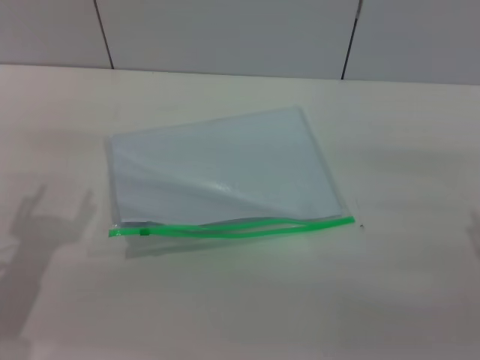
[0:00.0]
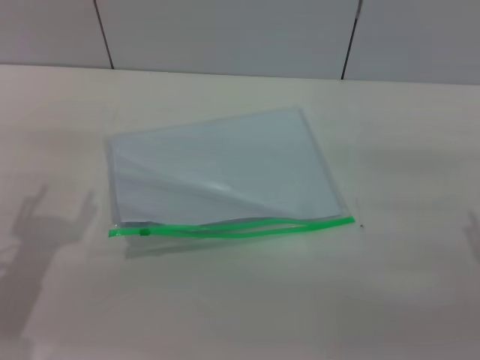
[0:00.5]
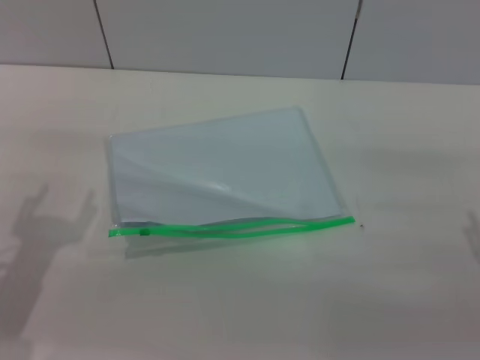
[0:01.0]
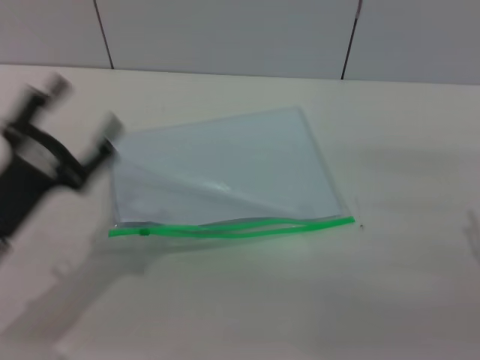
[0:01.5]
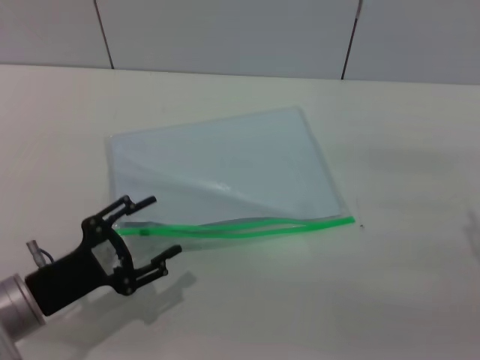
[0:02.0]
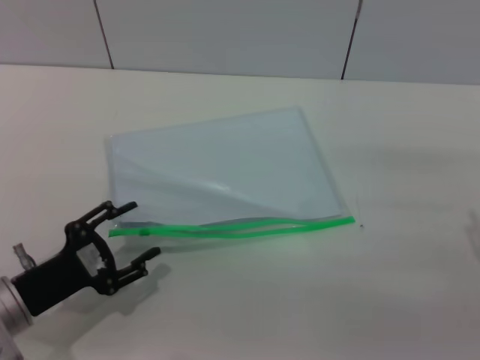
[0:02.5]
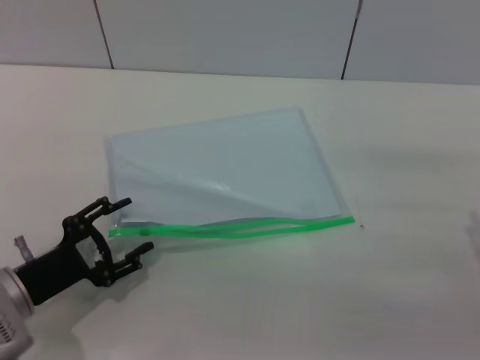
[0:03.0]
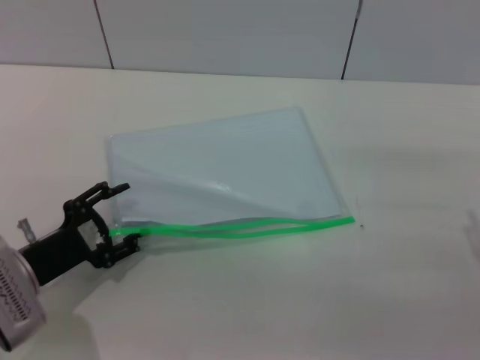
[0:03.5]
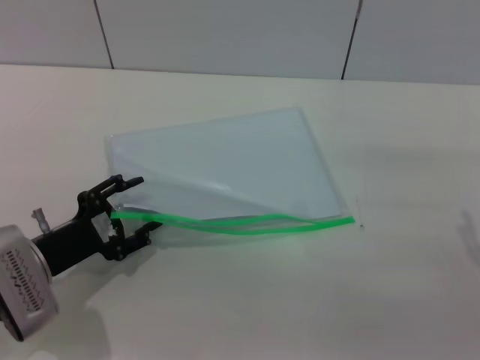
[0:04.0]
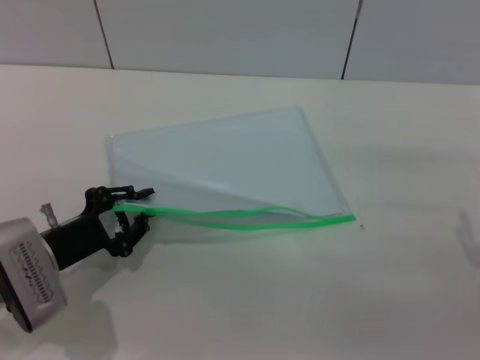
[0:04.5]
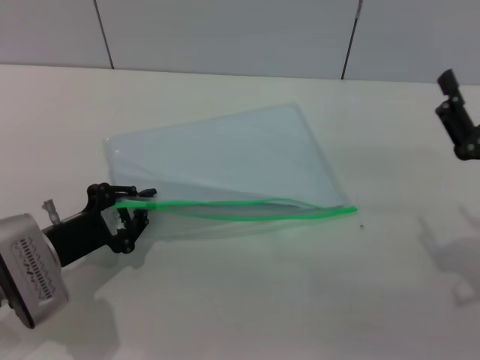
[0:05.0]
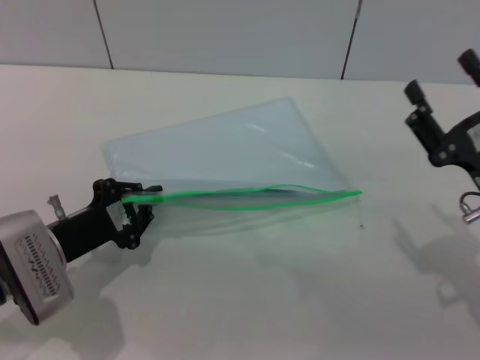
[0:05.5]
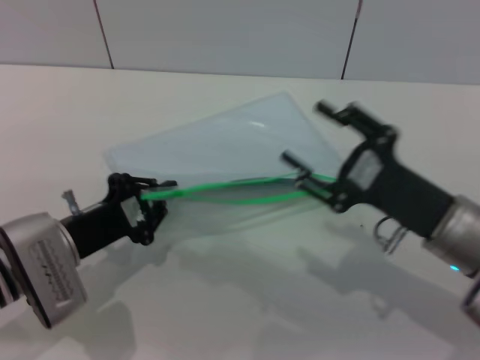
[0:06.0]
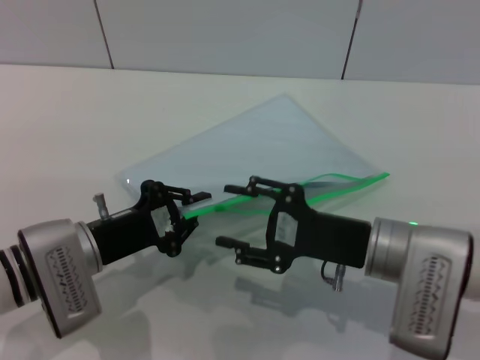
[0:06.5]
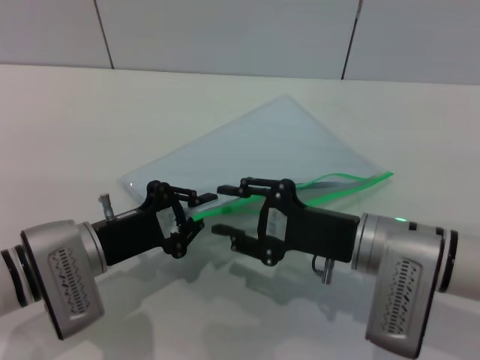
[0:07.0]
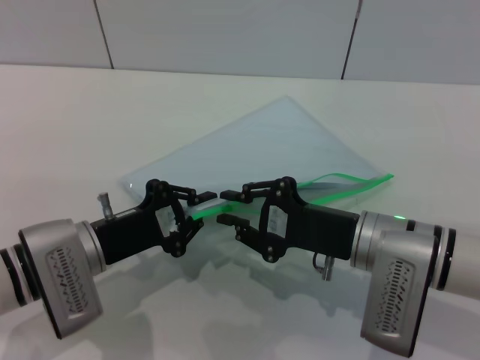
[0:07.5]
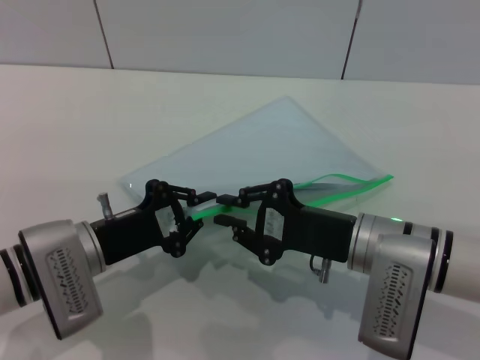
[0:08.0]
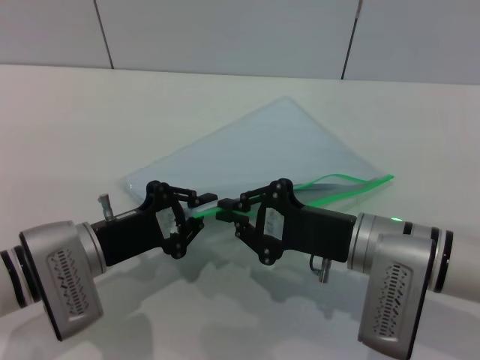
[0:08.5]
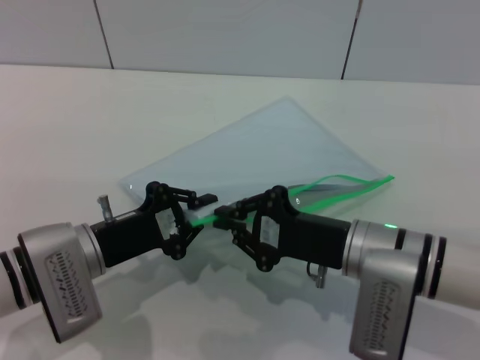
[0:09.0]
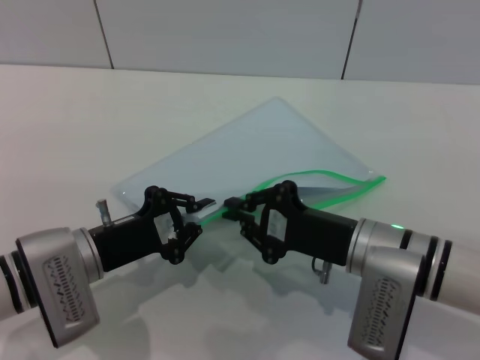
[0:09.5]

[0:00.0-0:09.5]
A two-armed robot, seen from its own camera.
Step, 0:00.0 to 0:05.0: Pick up the transparent plastic bag with the left gripper.
0:00.0 to 0:02.0: The left gripper goes about 5 cm downward.
0:02.0 to 0:04.0: The grippers stay close to where they were, moving slightly.
0:04.0 to 0:05.5: The left gripper closes.
0:05.5 to 0:07.5: The right gripper travels to the left by approximately 10 cm, and closes.
0:07.5 to 0:09.5: The grippers stay close to where they were, moving slightly.

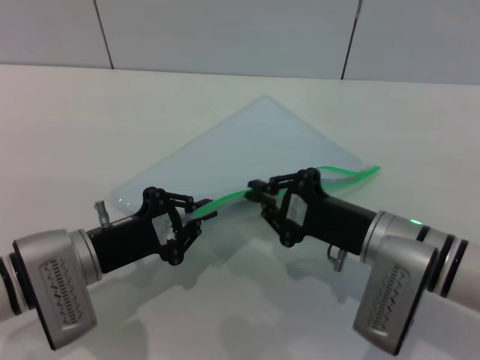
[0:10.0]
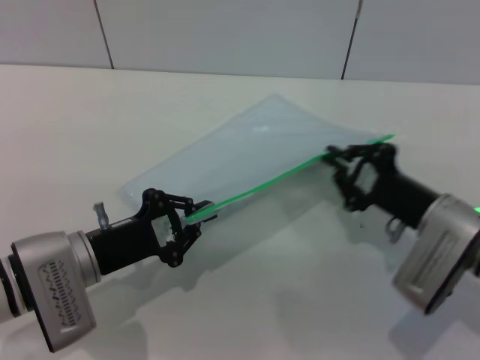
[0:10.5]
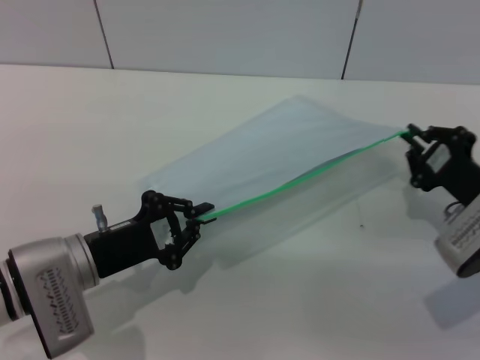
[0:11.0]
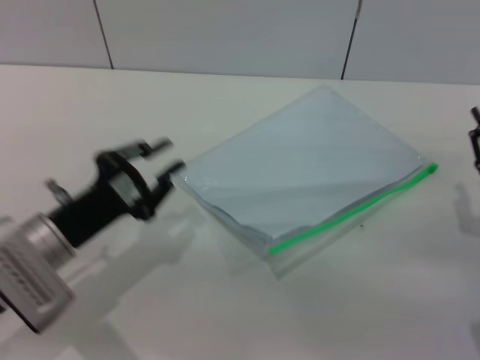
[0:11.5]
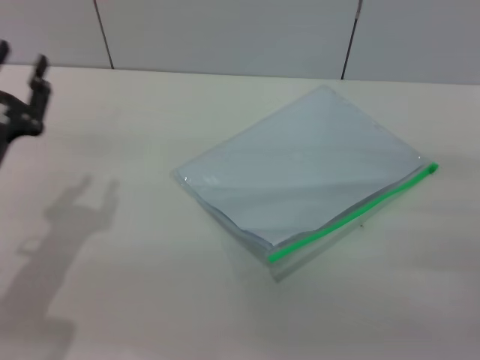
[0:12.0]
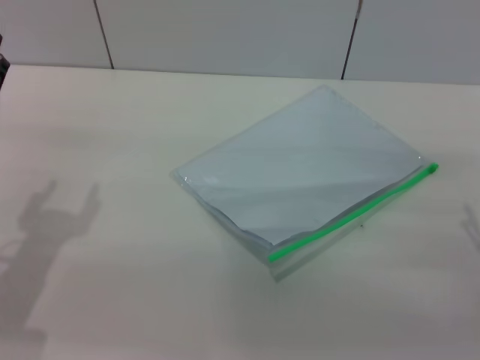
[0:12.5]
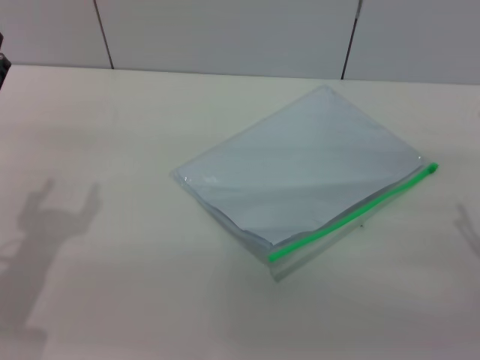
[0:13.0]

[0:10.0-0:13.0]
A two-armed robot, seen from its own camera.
Step, 0:11.5 to 0:12.0: Place the transparent plastic bag.
0:10.0 to 0:11.5: The right gripper heads to the right, covering approximately 15 cm.
0:11.5 to 0:13.0: The left gripper goes about 5 cm to the left, and opens. The right gripper opens.

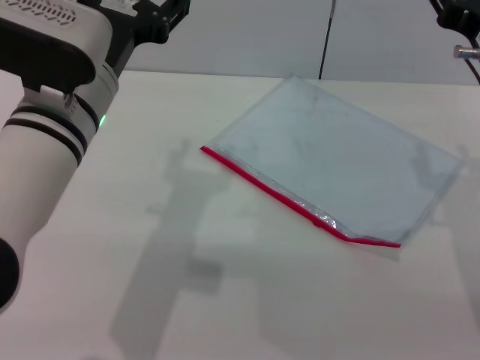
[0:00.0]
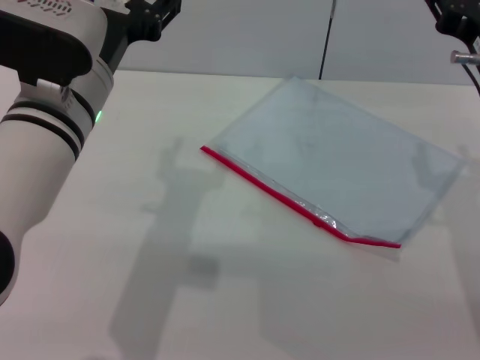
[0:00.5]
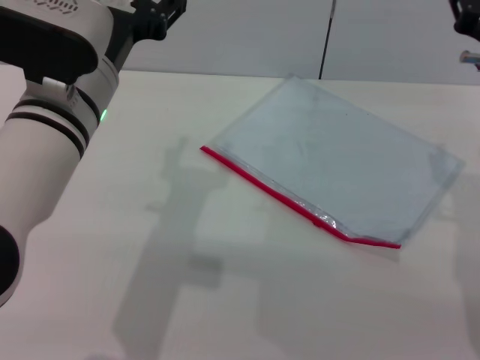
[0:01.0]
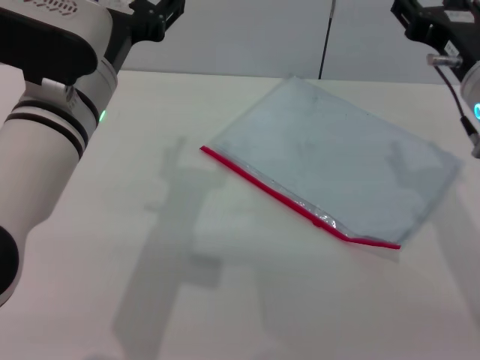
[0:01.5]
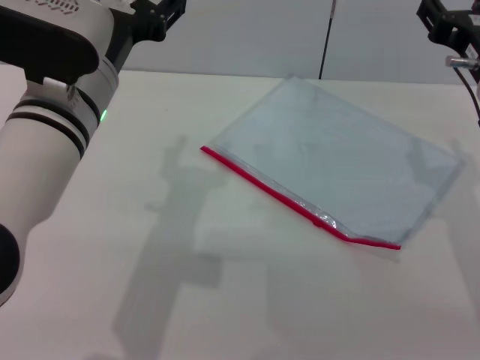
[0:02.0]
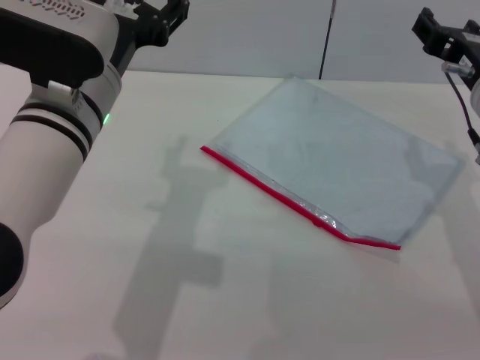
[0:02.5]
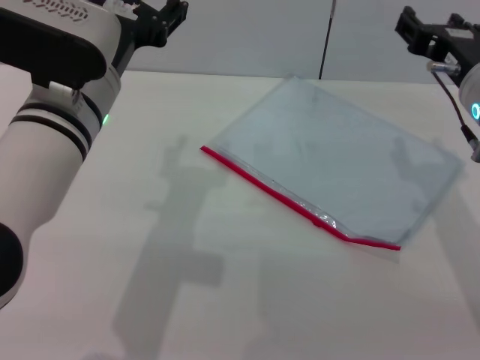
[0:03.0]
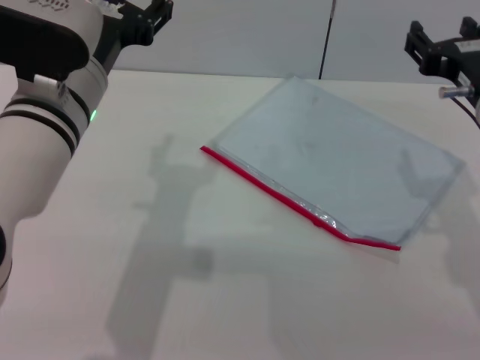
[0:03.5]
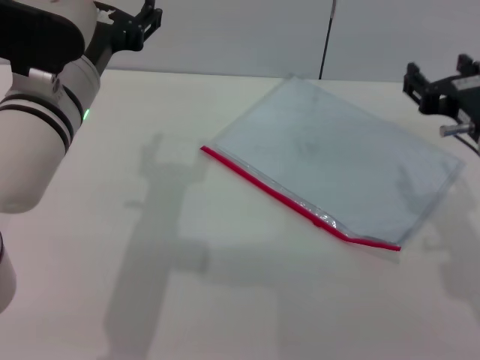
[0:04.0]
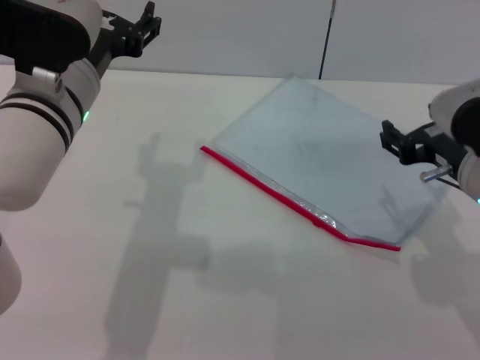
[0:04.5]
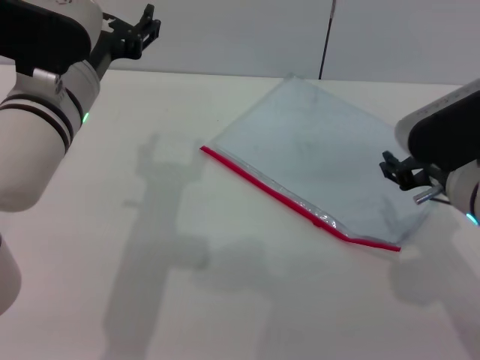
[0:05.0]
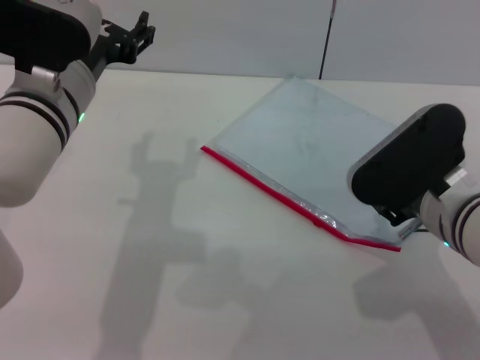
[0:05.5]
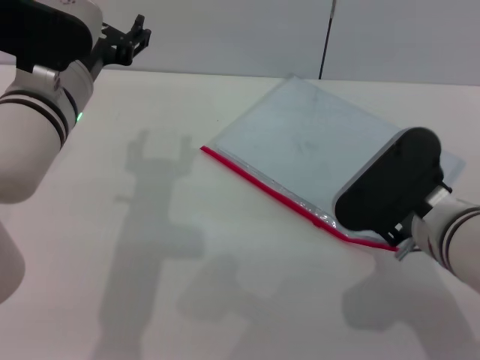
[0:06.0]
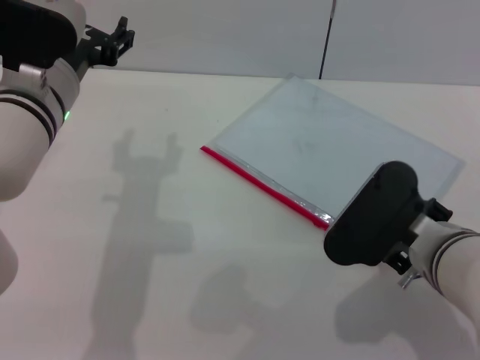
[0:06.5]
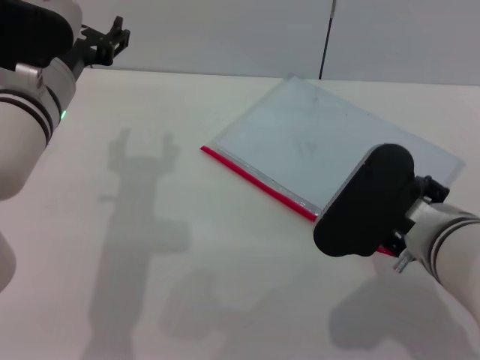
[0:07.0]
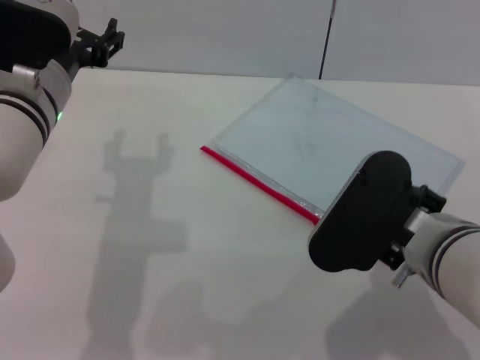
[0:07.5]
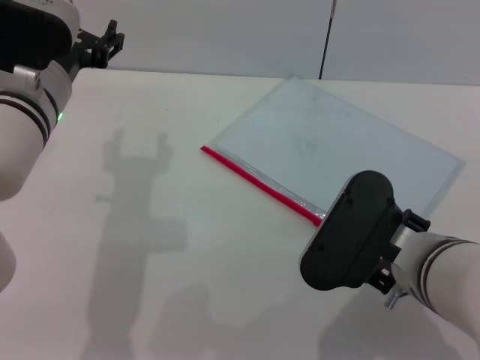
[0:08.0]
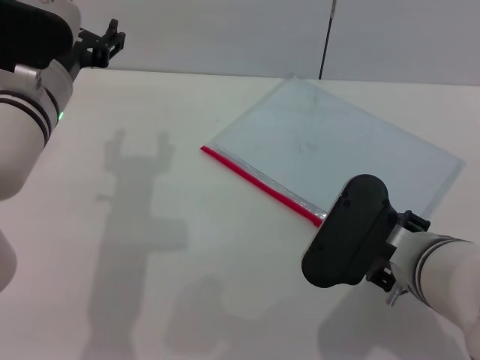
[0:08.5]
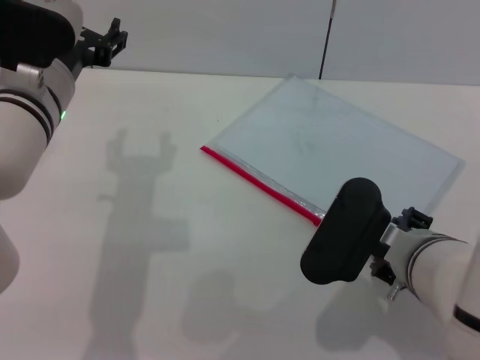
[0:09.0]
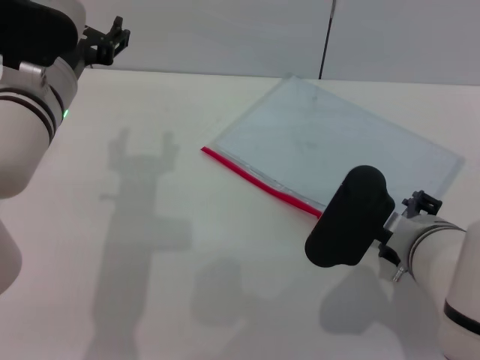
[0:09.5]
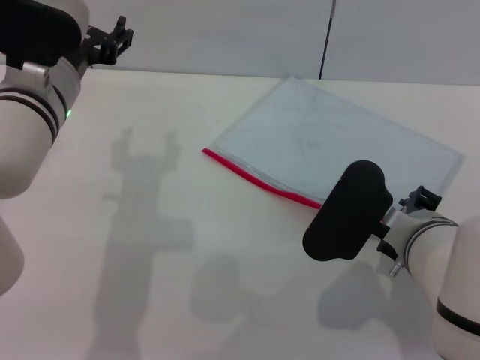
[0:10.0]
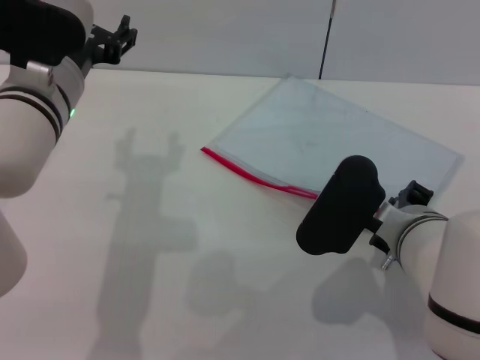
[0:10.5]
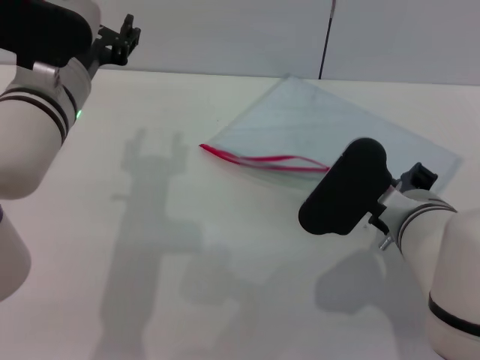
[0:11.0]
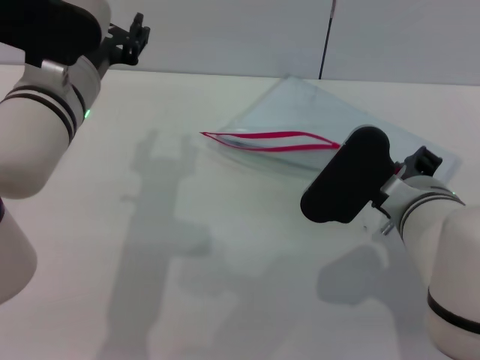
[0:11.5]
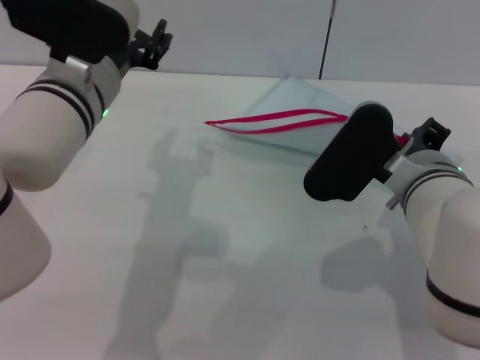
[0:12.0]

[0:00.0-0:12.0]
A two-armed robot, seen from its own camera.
0:00.0 to 0:02.0: The grippers make only small movements.
0:02.0 to 0:04.0: The grippers make only small movements.
0:04.0 to 0:06.0: The right gripper goes some 5 cm to the left.
0:06.0 to 0:10.0: The grippers make only small movements.
0:10.0 to 0:12.0: The right gripper closes up.

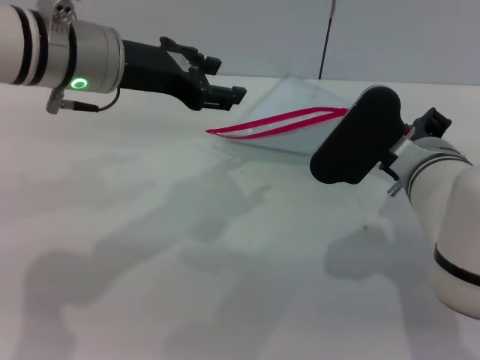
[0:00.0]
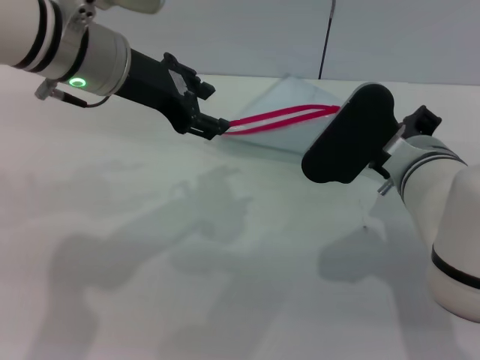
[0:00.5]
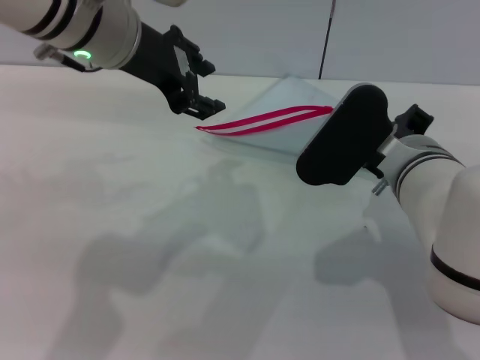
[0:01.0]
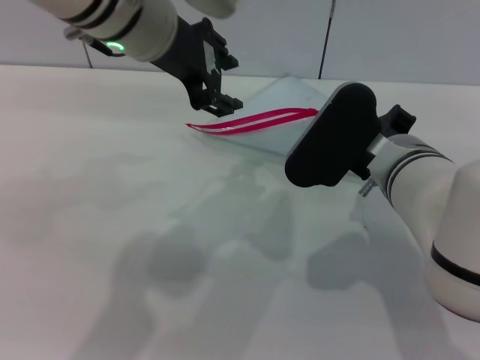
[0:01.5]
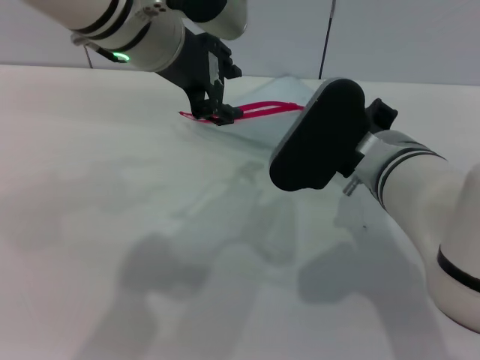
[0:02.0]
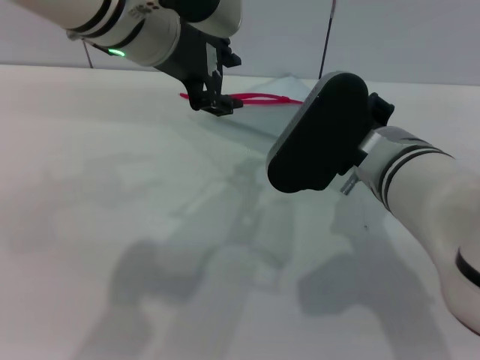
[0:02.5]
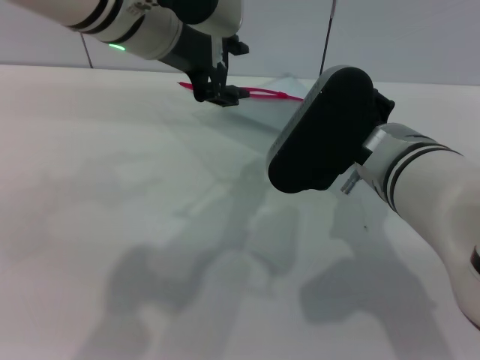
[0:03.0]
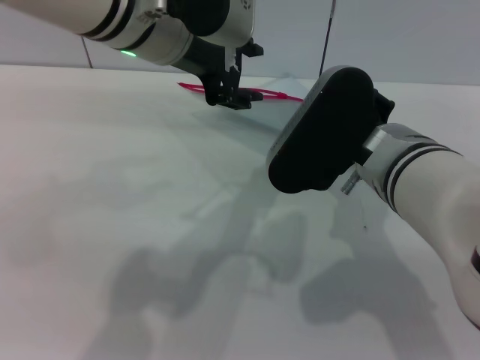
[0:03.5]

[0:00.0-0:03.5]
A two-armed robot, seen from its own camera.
0:00.0 to 0:02.0: The left gripper is displaced to the right by approximately 5 cm.
0:02.0 to 0:03.5: The grippers make only small movements.
